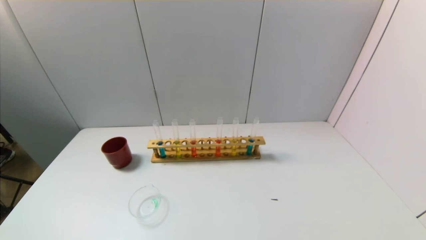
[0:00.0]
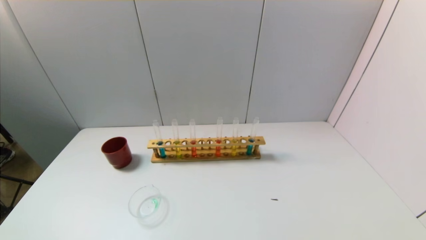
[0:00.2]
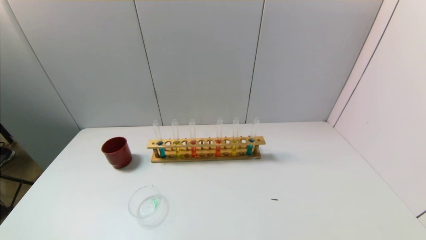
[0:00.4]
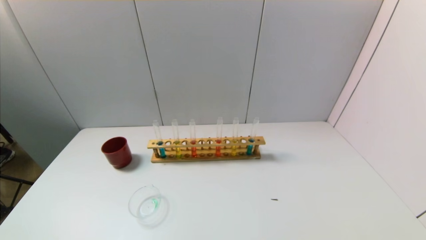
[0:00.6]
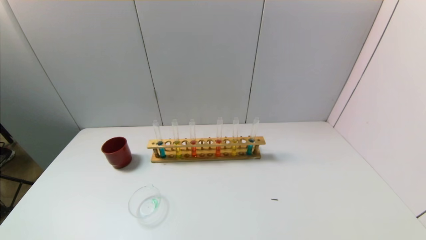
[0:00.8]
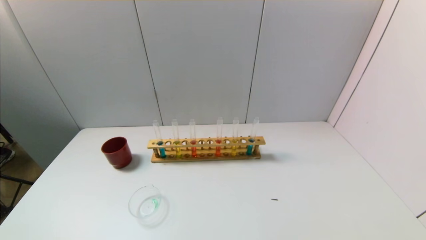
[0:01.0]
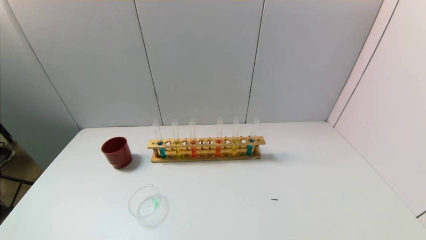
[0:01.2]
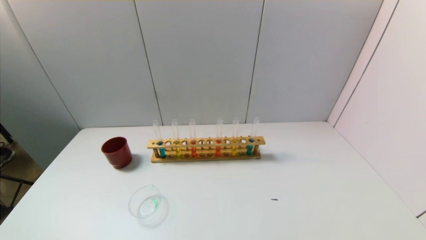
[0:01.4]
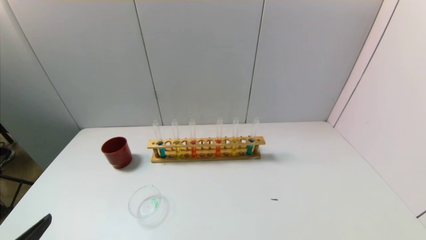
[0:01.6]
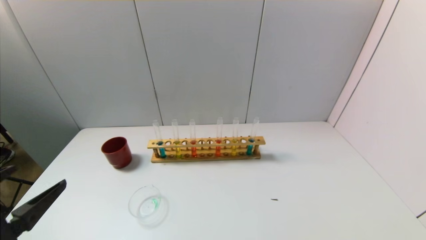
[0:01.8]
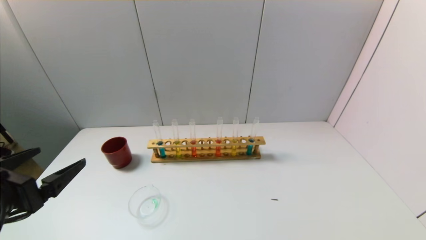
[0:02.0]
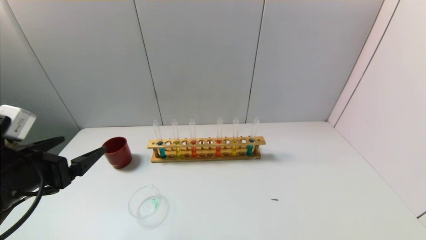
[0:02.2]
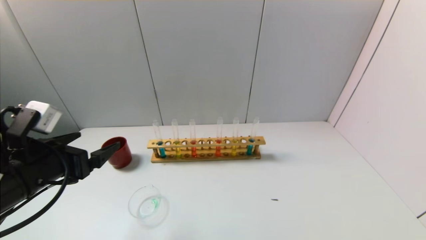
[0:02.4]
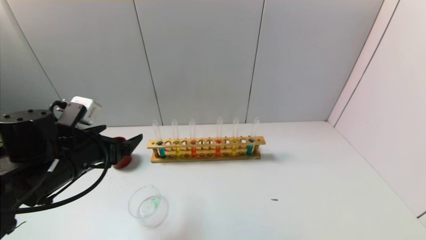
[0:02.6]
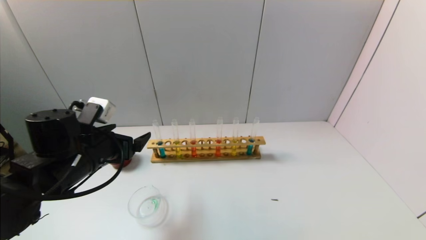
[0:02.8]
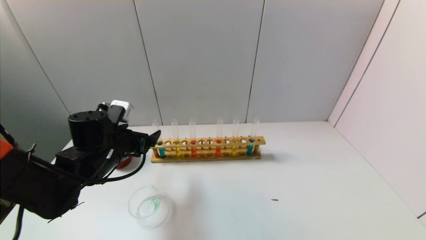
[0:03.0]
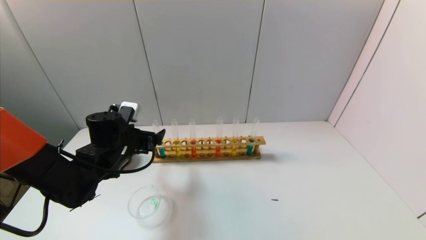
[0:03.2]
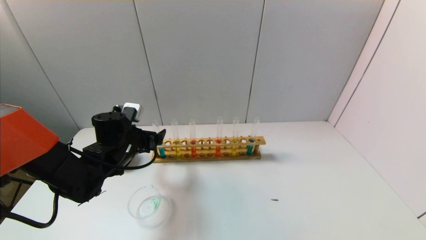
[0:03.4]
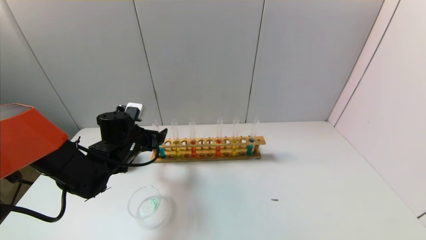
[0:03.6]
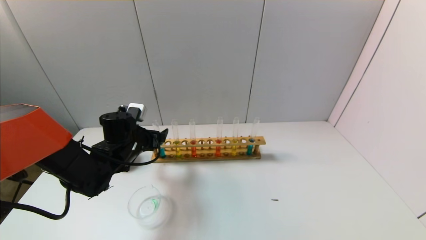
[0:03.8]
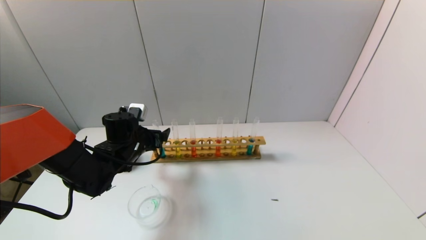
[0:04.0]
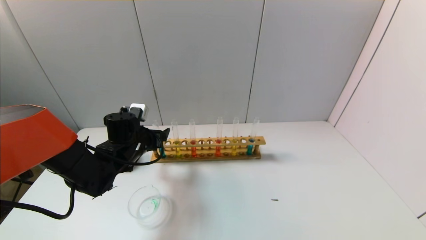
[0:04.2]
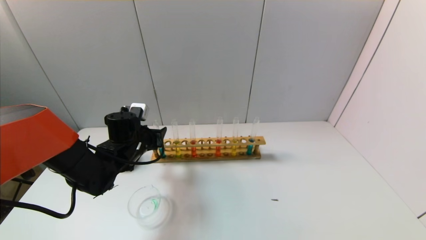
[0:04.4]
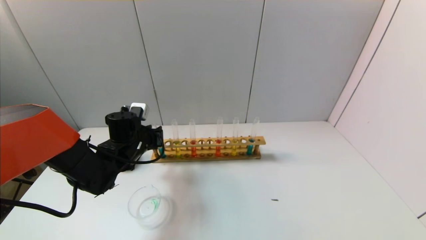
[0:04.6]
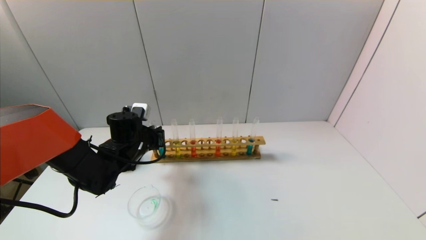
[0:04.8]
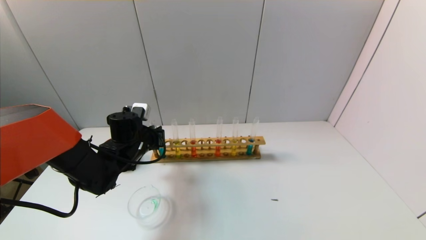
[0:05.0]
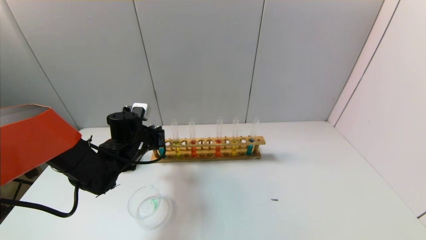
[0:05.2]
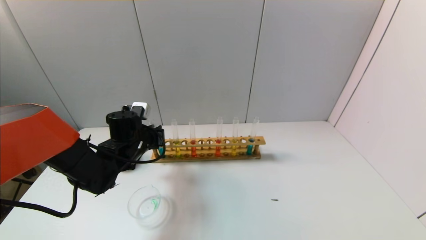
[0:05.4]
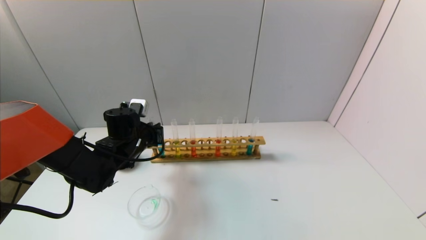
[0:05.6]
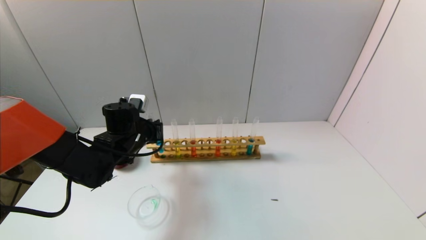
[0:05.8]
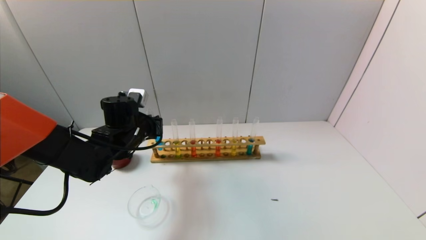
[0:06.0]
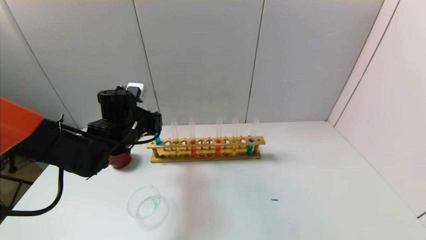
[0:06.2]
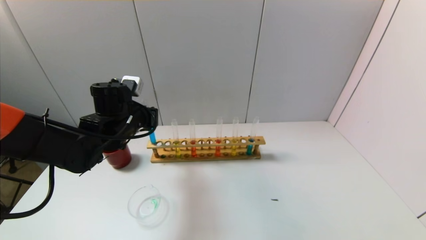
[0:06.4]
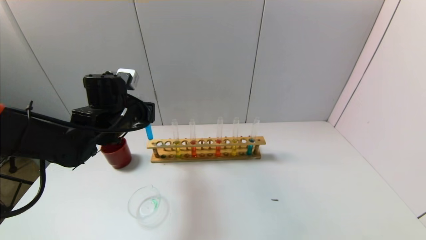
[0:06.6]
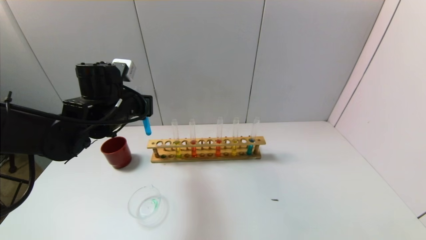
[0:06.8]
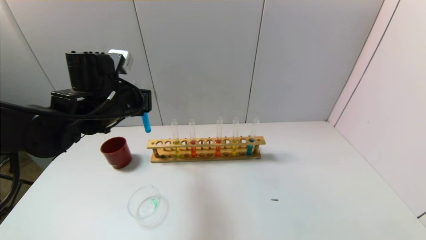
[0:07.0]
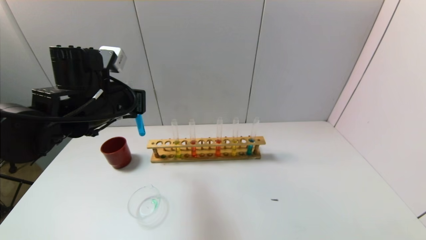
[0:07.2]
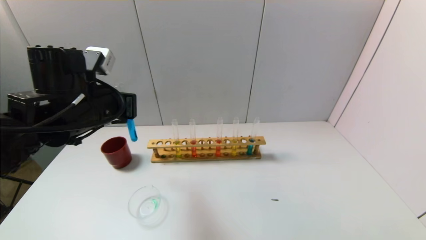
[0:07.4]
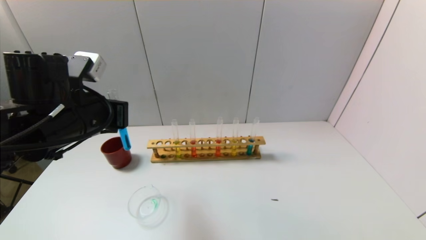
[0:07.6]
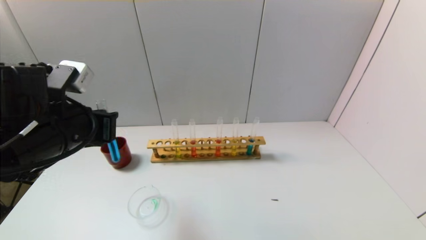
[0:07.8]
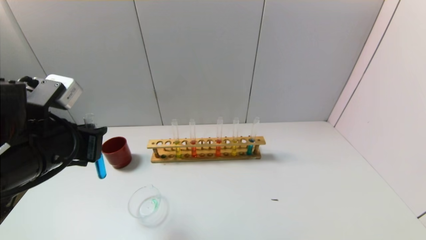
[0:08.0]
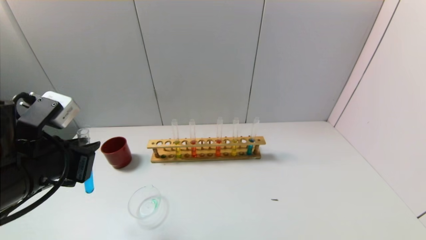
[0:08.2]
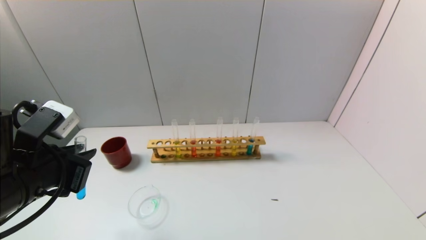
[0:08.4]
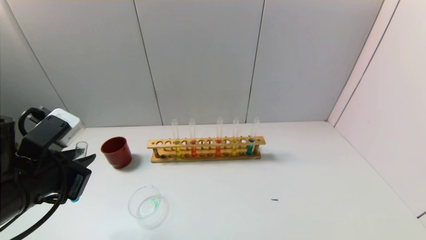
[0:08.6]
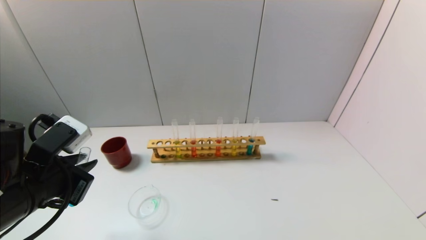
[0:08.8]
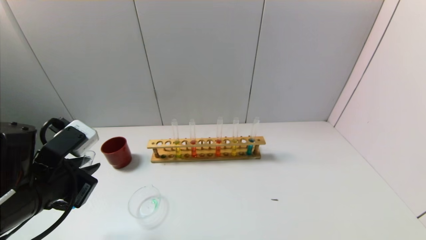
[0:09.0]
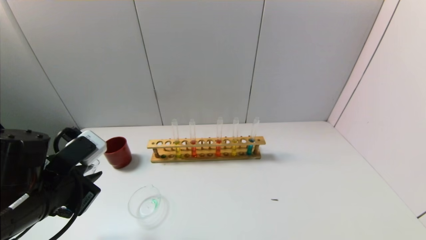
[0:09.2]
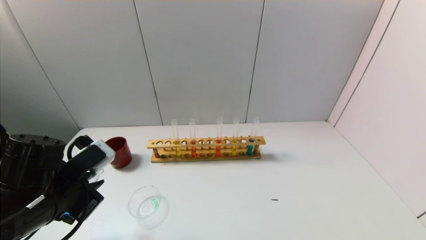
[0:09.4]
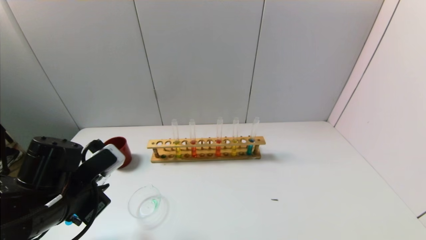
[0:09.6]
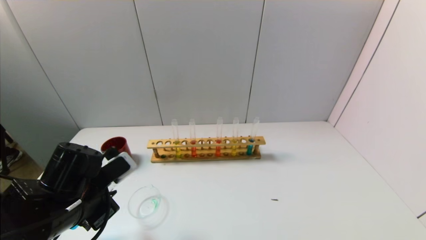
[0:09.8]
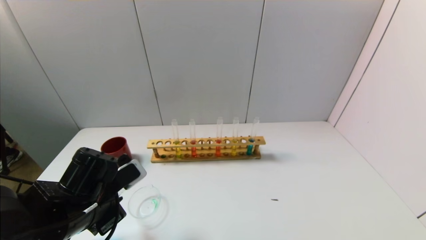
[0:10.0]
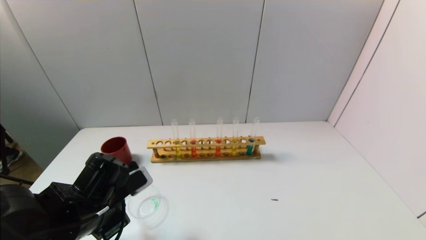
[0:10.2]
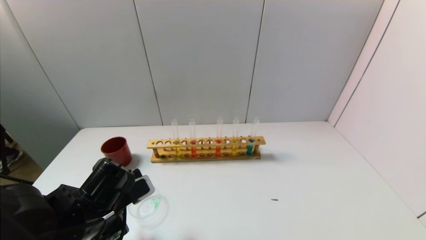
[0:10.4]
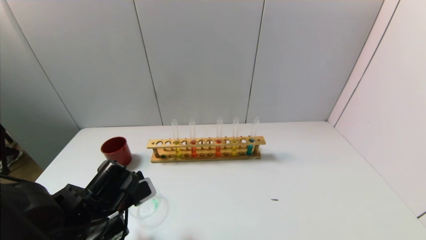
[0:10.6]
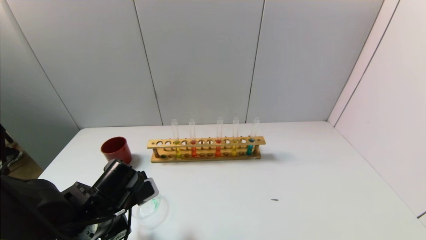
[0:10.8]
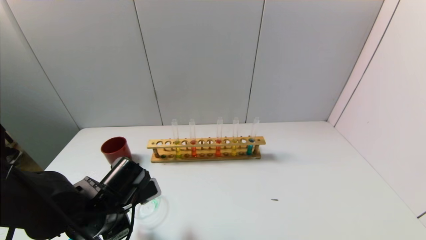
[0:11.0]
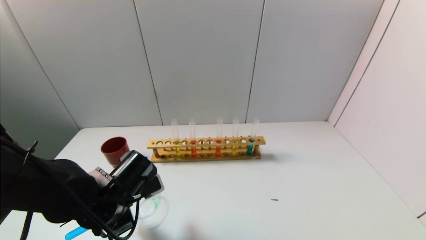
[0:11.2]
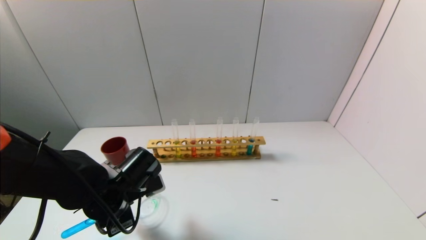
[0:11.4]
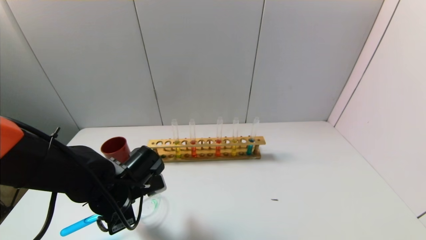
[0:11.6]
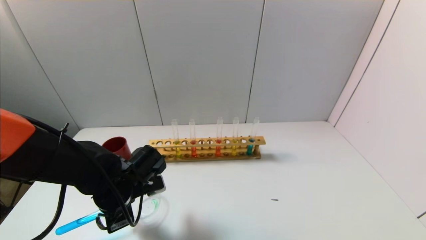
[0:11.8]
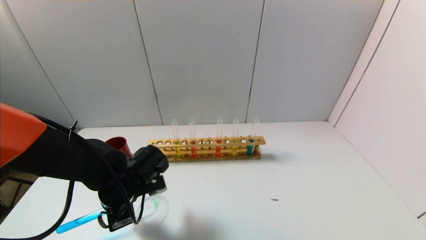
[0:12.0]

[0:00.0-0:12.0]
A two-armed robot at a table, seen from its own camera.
Task of the whole recording: pick up the test tube with yellow pigment and the test tube with blue pigment by grippers and pour them into the beaker.
Step, 0:00.0 to 0:05.0: Grasp the blue reagent with the left gripper.
0:01.6 to 0:03.0: The left gripper shifts approximately 25 cm forward.
0:03.0 to 0:04.4: The left gripper goes some 5 cm forward, and closes up.
0:04.4 to 0:06.0: The left gripper closes up.
0:06.0 to 0:07.6: The left gripper heads backward and upward, covering roughly 15 cm.
0:07.6 to 0:09.0: The left gripper is displaced backward and downward by approximately 10 cm.
0:09.0 to 0:10.4: The left gripper heads downward, covering some 10 cm.
0:10.4 to 0:12.0: The left gripper is displaced forward by approximately 5 cm.

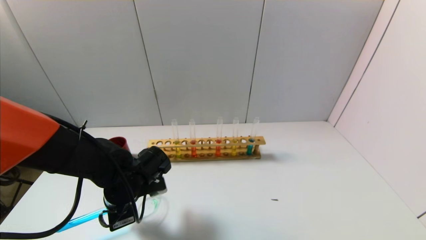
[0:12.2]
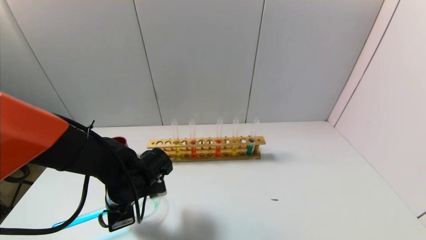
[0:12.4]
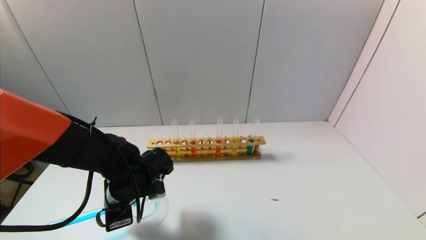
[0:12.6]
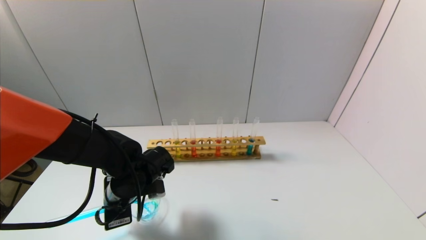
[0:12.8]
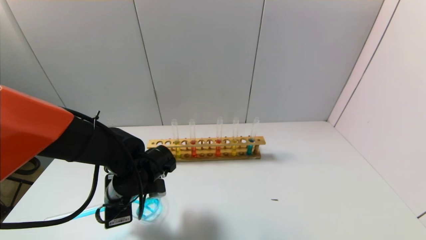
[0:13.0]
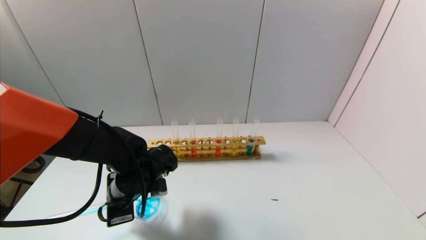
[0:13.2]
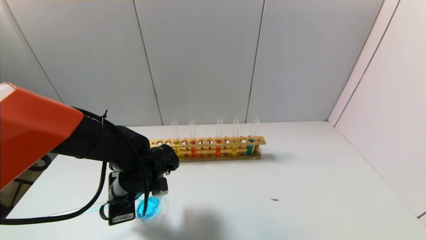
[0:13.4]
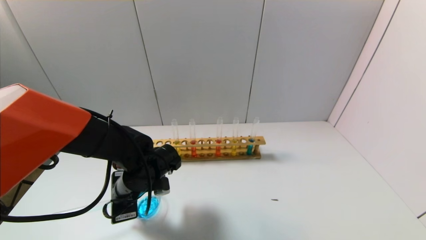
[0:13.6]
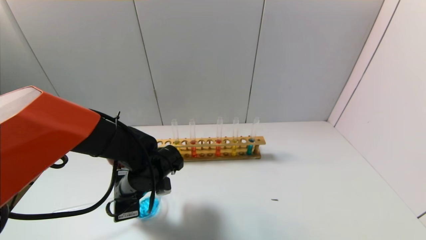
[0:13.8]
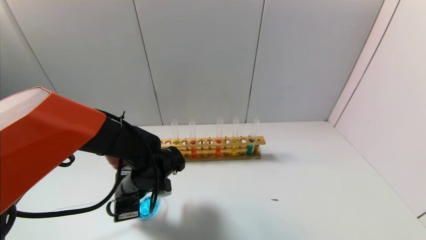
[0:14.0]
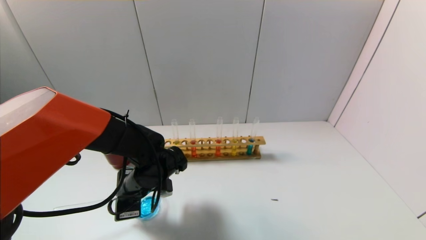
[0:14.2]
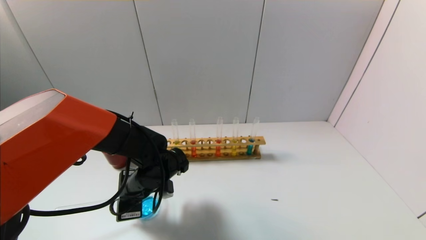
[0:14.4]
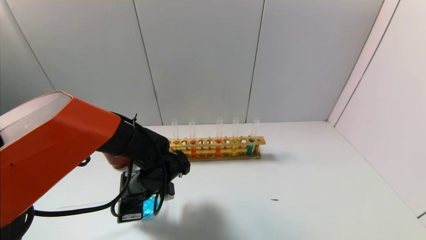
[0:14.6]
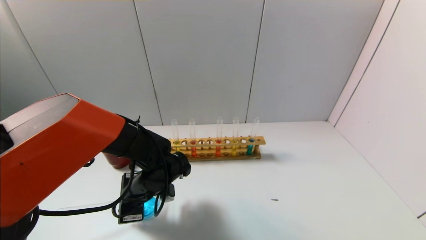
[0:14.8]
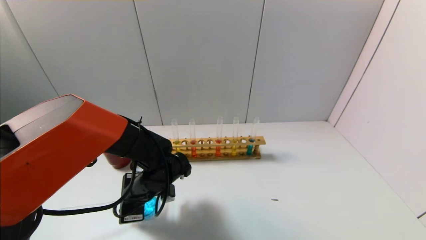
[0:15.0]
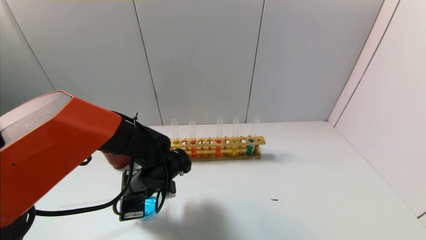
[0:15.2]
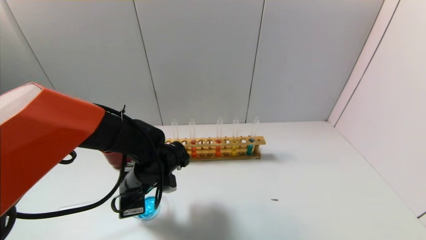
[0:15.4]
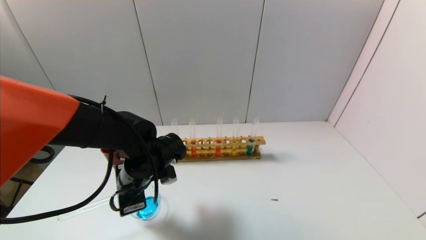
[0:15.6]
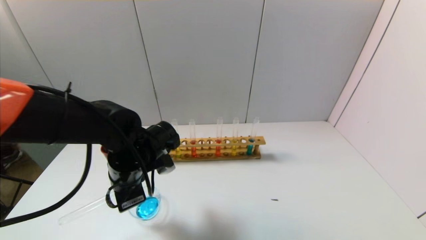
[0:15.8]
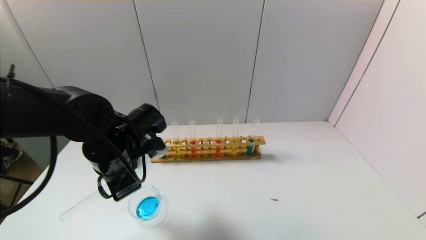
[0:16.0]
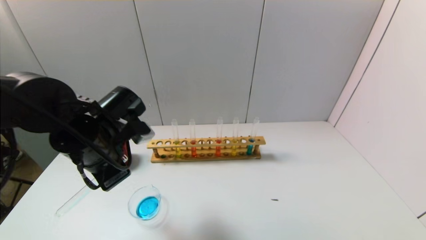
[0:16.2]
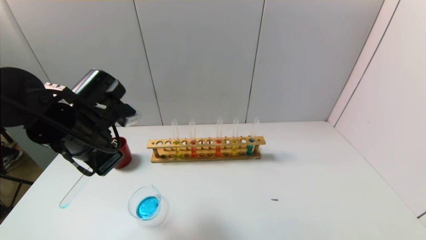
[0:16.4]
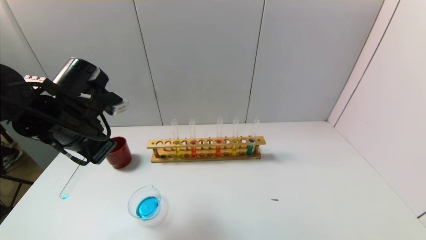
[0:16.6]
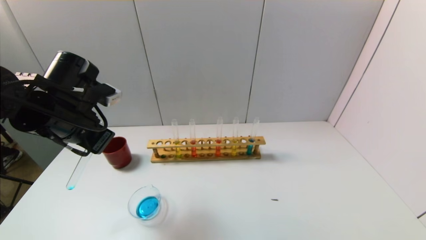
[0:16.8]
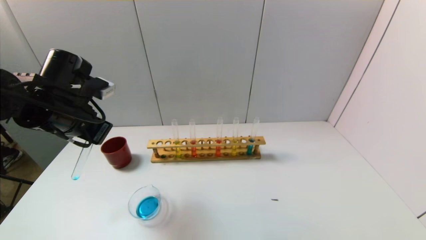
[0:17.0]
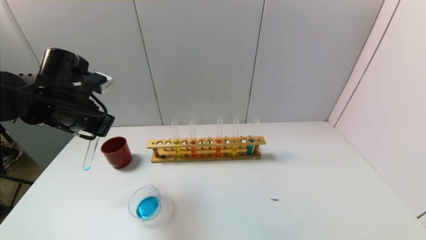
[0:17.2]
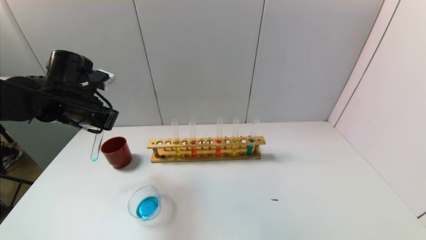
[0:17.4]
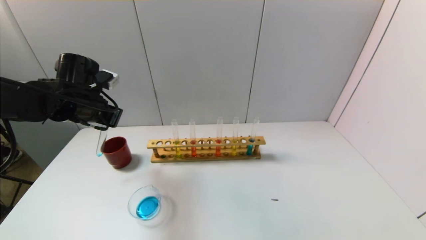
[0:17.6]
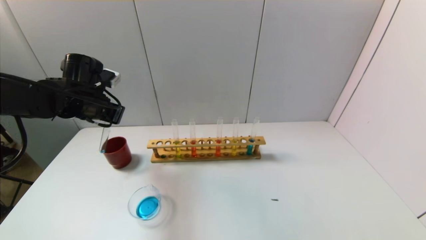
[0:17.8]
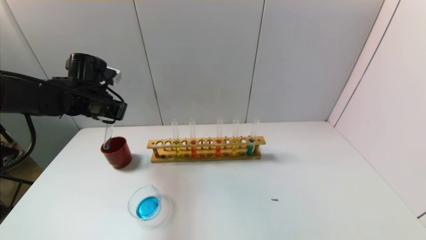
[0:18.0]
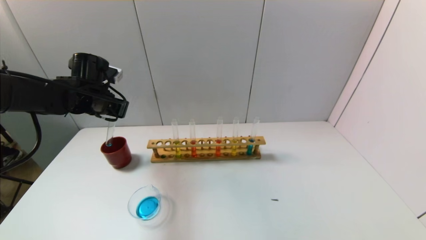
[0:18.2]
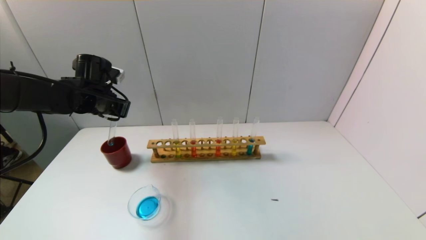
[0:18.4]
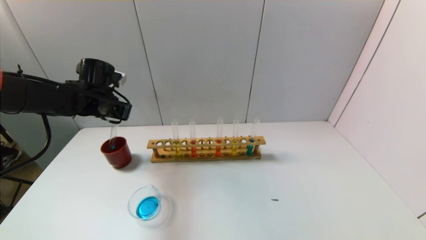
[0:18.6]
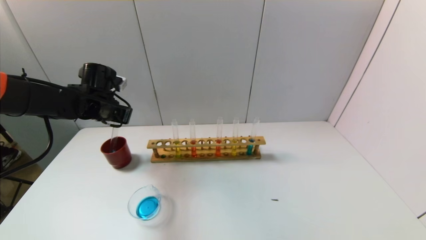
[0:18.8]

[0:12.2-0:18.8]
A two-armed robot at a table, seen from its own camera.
Task of the whole recording: pick up the test tube with yellow pigment and the test tube with blue pigment by grippers and pour them into the beaker.
Step, 0:12.2 to 0:14.4: Pour the blue reagent into the graduated cylinder with the left gripper.
0:12.2 to 0:15.4: The grippers stay close to where they were, moving slightly.
0:15.4 to 0:17.2: The left gripper heads upward and to the left, covering some 20 cm.
0:17.2 to 0:18.8: The left gripper travels forward by about 10 cm.
